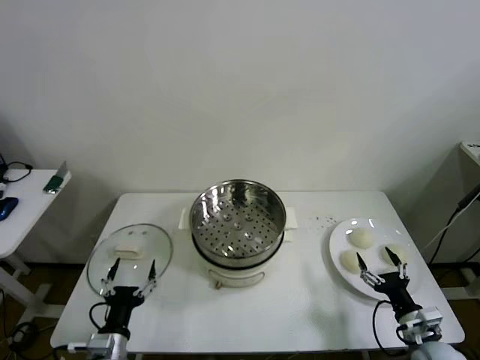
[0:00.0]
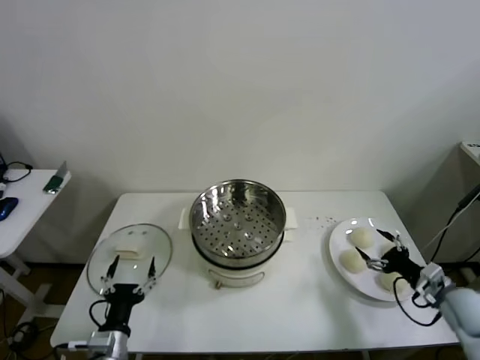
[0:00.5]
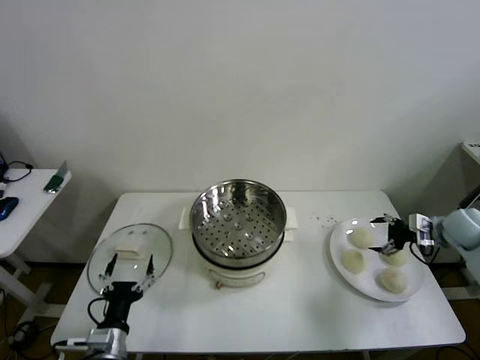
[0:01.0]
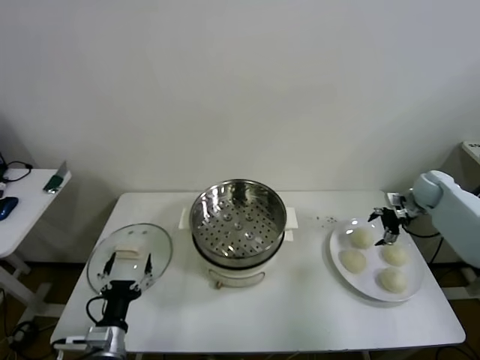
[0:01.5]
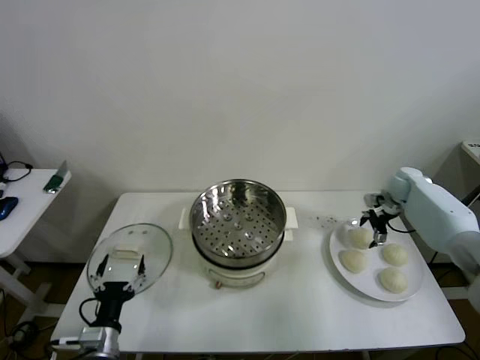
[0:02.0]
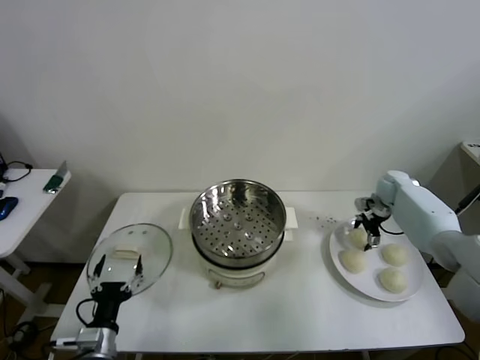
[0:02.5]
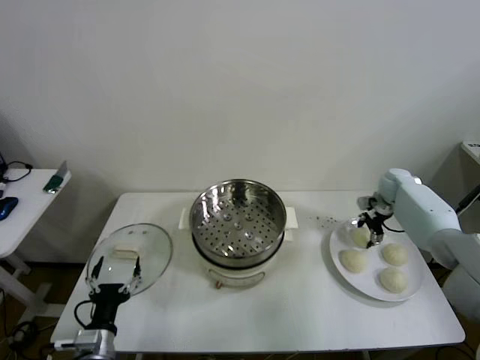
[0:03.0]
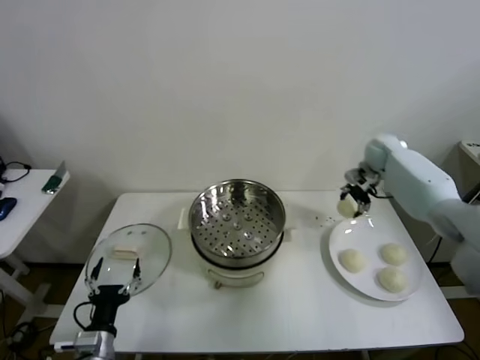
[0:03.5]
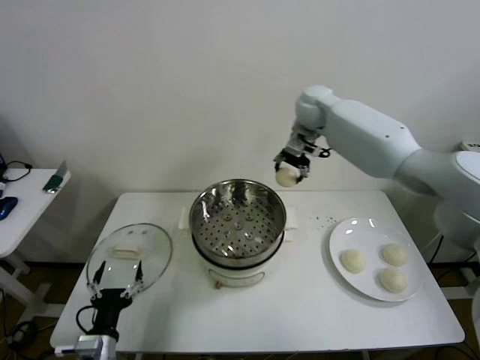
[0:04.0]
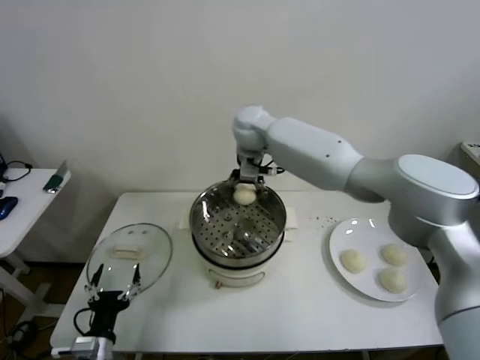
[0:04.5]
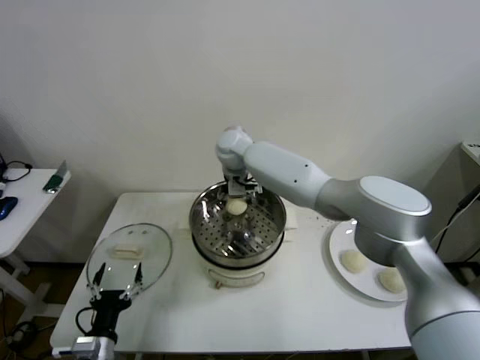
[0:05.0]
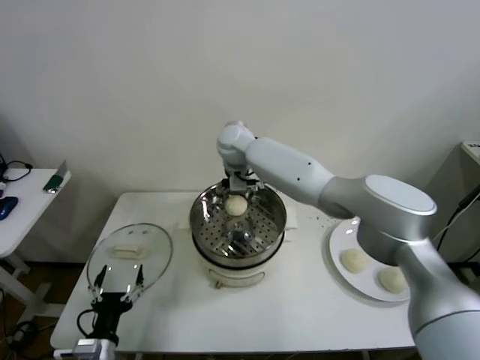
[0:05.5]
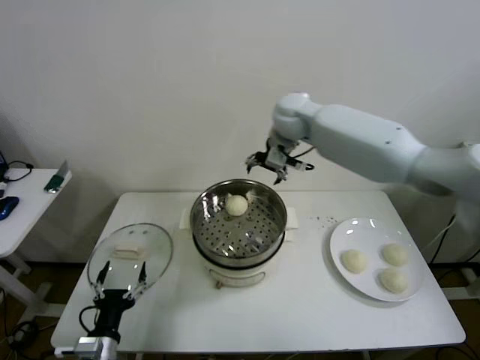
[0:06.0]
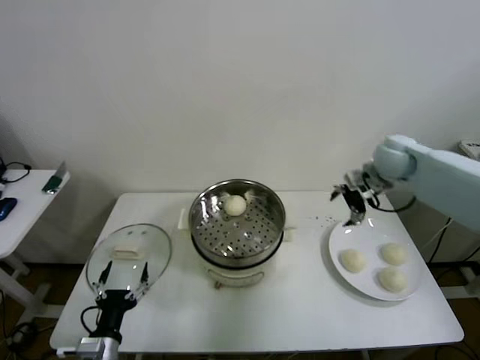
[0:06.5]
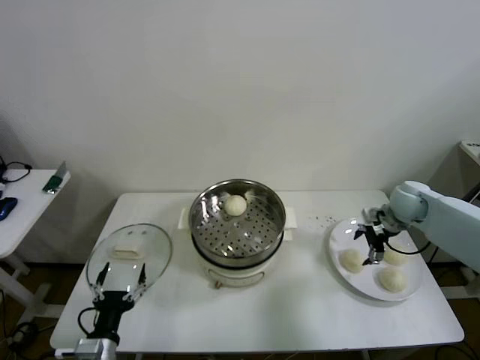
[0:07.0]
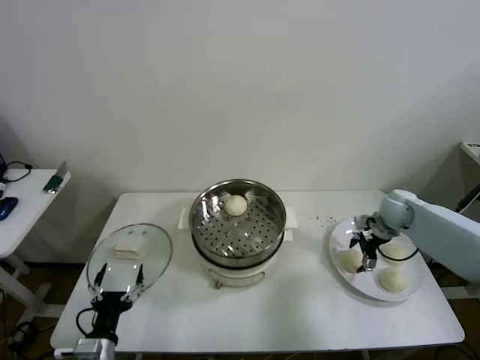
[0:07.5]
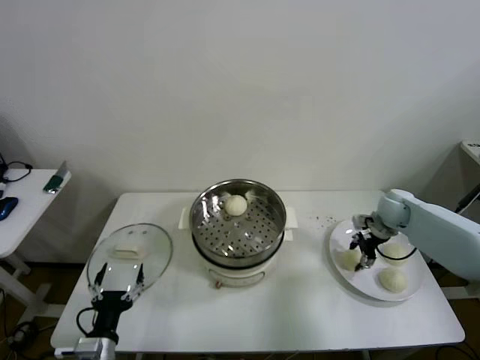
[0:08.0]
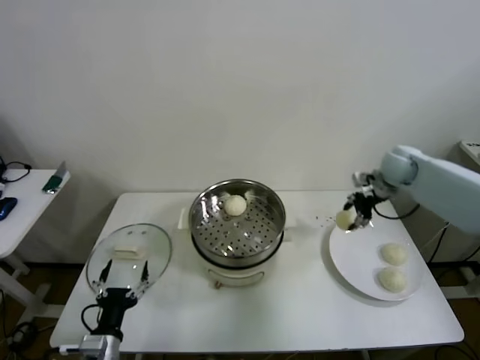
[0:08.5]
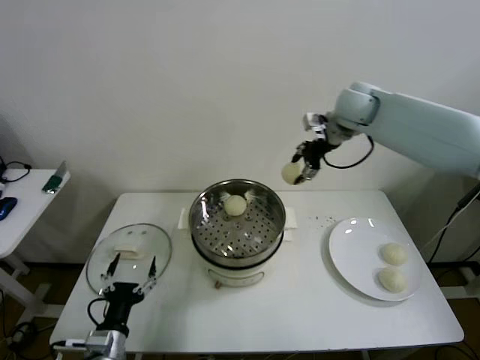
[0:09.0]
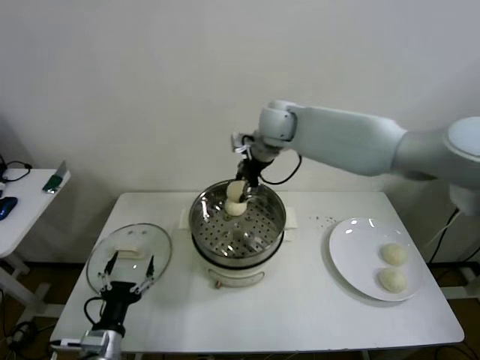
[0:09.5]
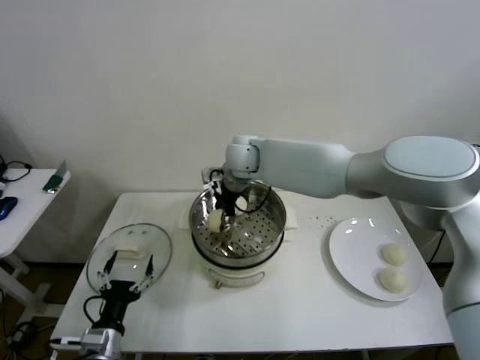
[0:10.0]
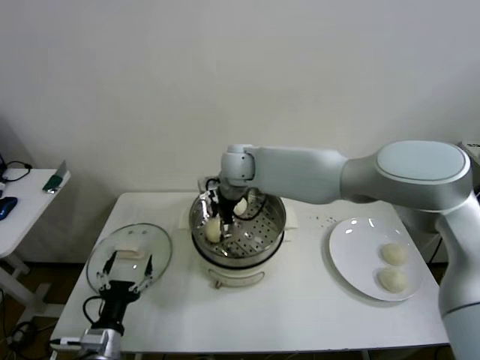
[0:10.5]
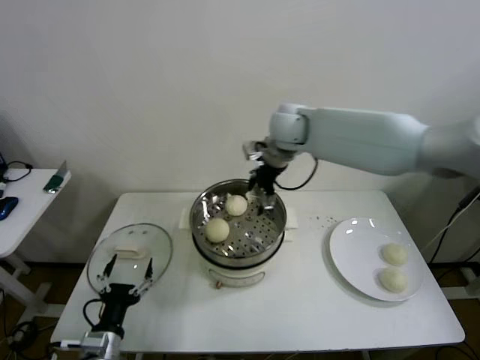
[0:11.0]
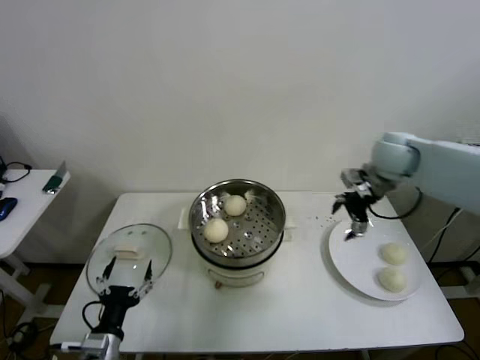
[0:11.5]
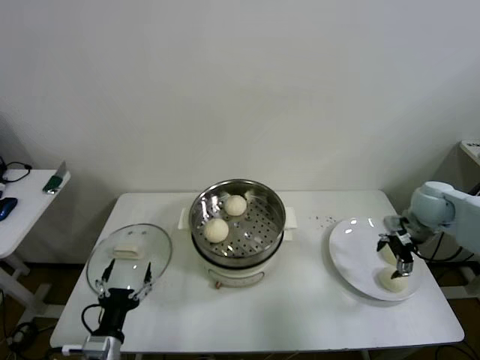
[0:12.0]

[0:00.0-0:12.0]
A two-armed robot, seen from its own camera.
Step, 0:00.0 to 0:02.5: Grasp the baozi in the plate with right gripper.
Step, 0:03.0 to 0:05.5: Place the baozi on the steamer with right gripper.
Step, 0:06.0 to 0:07.5: Grasp the baozi in the plate with right gripper.
Step, 0:08.0 to 0:10.5: Place the baozi on the steamer with right gripper.
0:02.0 to 0:04.0: The right gripper heads to the left and upward, covering approximately 40 cm, and closes its fingers.
0:04.0 to 0:06.0: The right gripper travels to the left and back again, about 15 cm each way, and opens its fingers.
0:06.0 to 0:08.0: The right gripper shifts some 35 cm to the right and downward, and closes up.
0:08.0 to 0:10.0: The right gripper goes approximately 40 cm to the left.
0:10.0 to 0:12.0: The right gripper travels to the right by approximately 40 cm, and opens its fingers.

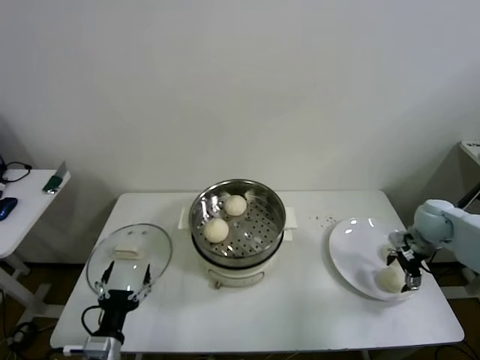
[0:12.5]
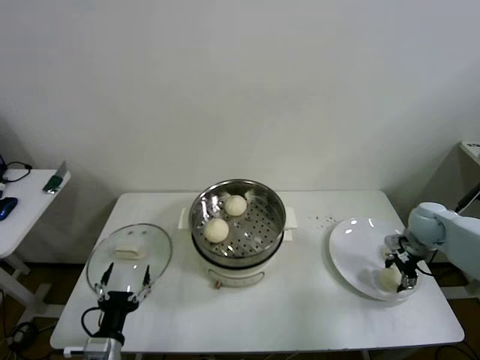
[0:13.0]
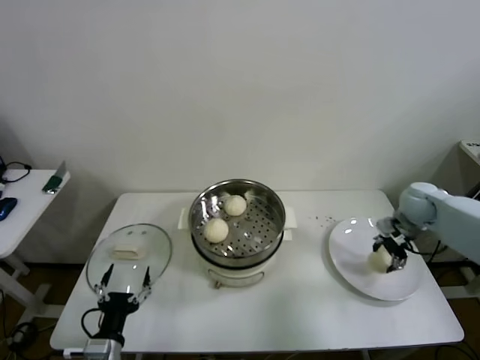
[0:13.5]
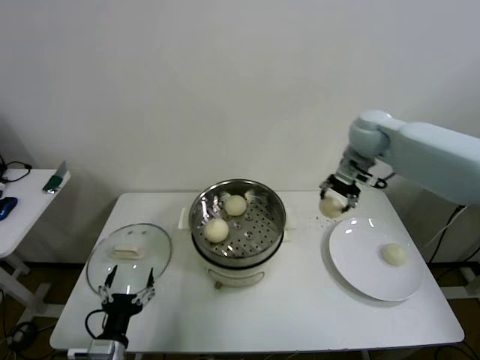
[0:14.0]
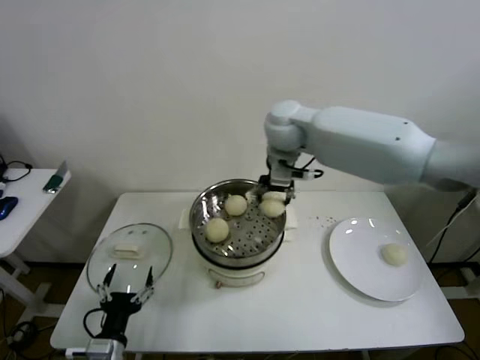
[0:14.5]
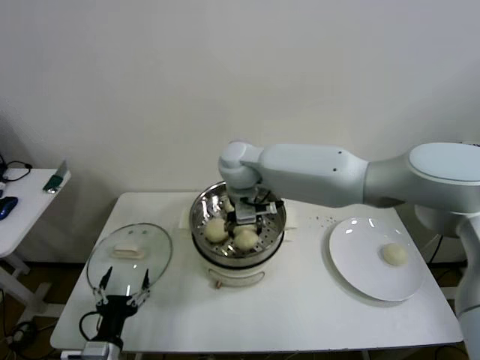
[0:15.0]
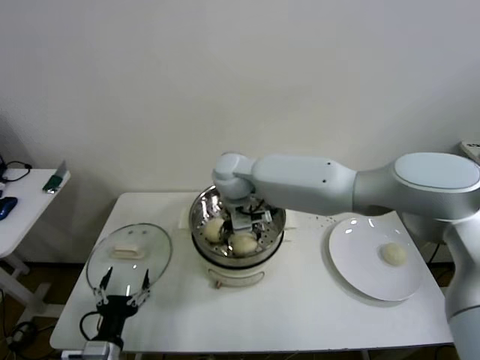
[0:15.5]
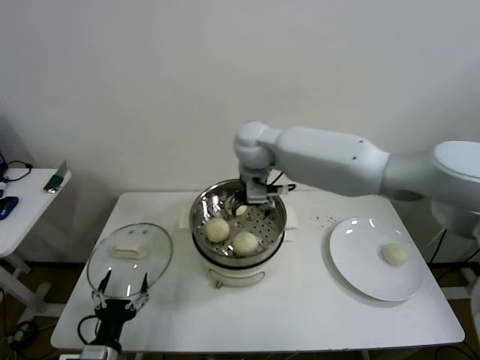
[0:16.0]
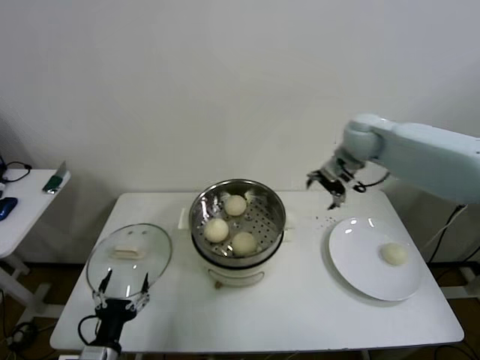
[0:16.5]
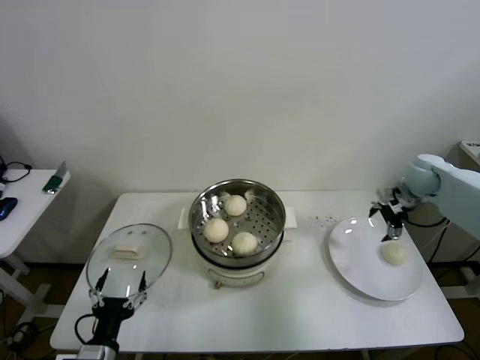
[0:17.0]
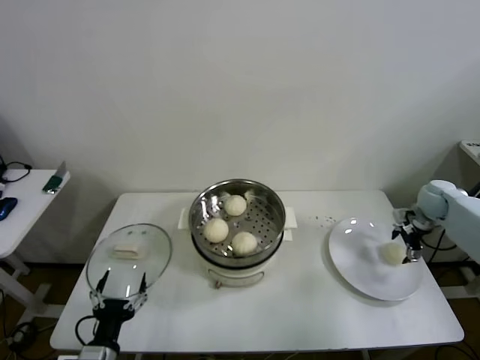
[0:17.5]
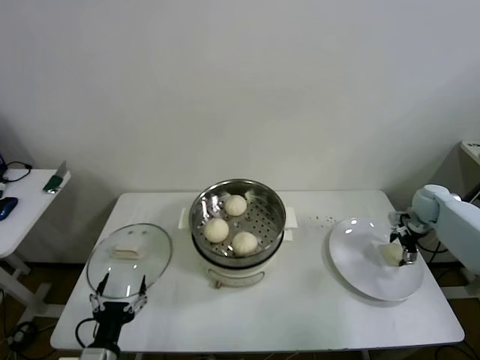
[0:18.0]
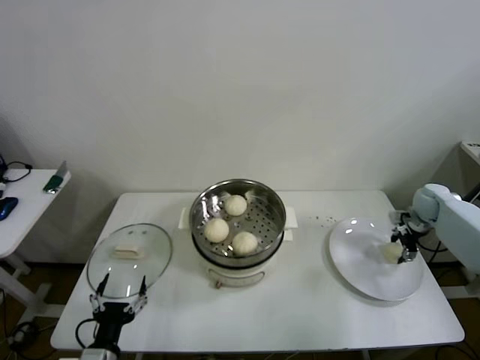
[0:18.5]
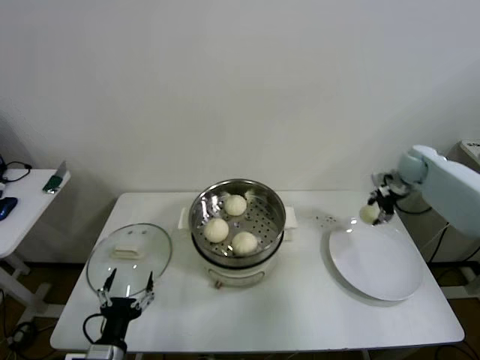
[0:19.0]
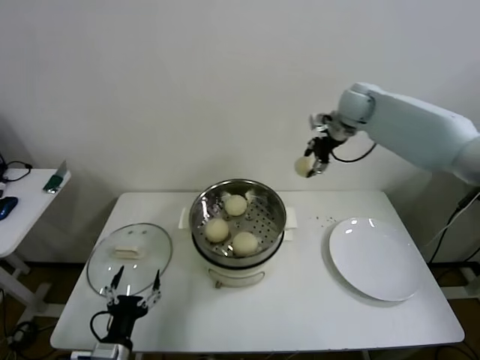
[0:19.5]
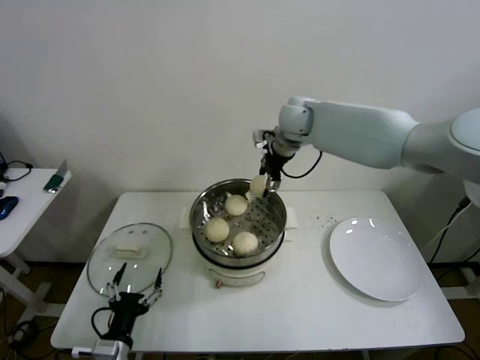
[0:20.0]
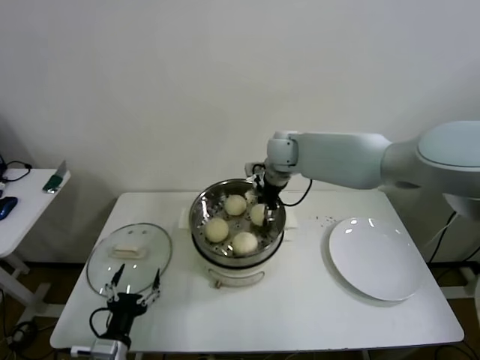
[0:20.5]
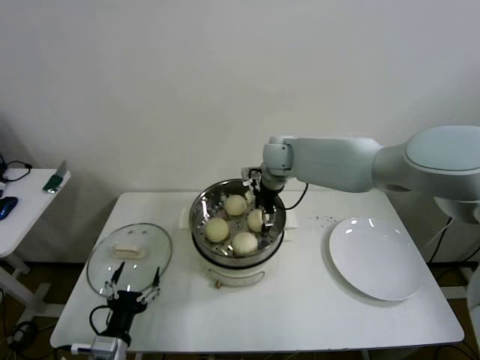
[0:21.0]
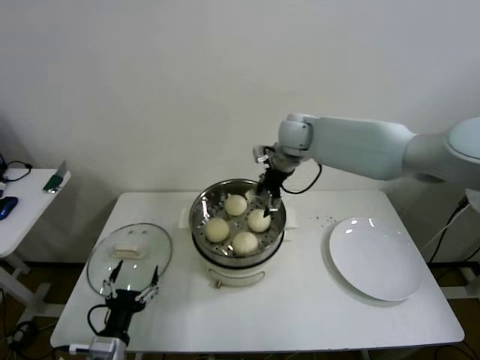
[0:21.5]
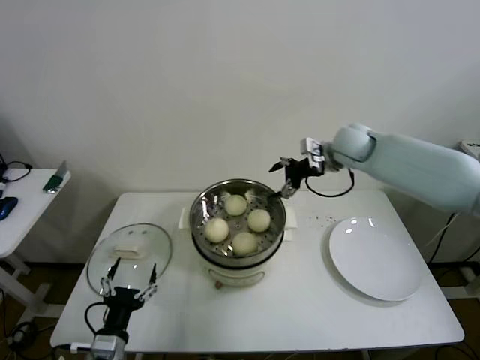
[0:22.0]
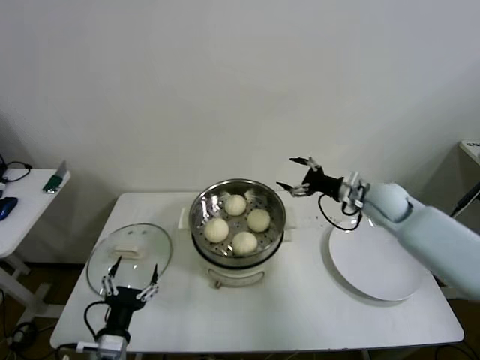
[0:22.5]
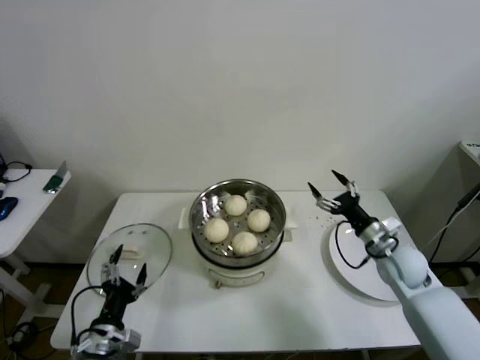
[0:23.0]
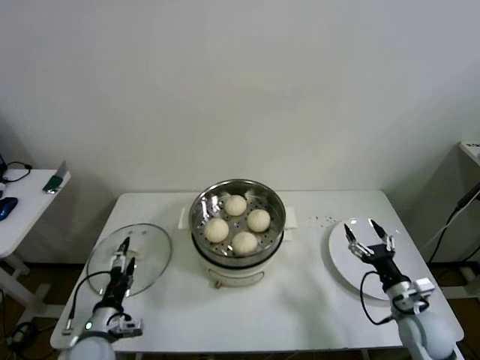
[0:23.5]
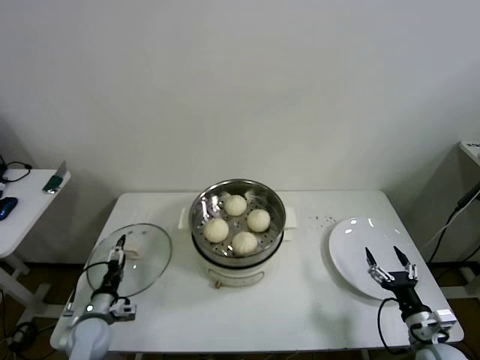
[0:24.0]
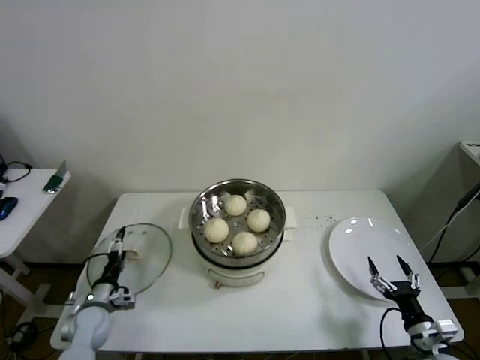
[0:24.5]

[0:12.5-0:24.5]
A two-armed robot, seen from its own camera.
Step, 0:13.5 to 0:16.0: Place the baozi on the steamer with right gripper.
Step, 0:16.5 to 0:18.5: Grasp the baozi in the plate with right gripper.
Step, 0:19.0 to 0:21.0: Place the baozi on the steamer with right gripper.
0:12.5 to 0:14.5: The right gripper is displaced to the left and upward by approximately 40 cm, and closes.
0:14.5 to 0:16.5: The right gripper moves to the right, some 20 cm, and opens.
0:16.5 to 0:18.5: The right gripper is displaced to the right and downward by roughly 30 cm, and closes its fingers.
0:18.5 to 0:20.5: The right gripper moves to the left, some 40 cm.
0:20.5 to 0:22.5: The right gripper goes approximately 25 cm to the right and backward, and opens.
0:22.5 to 0:24.5: The left gripper travels forward, to the left and downward by some 20 cm, while the right gripper heads backward and downward, covering about 35 cm.

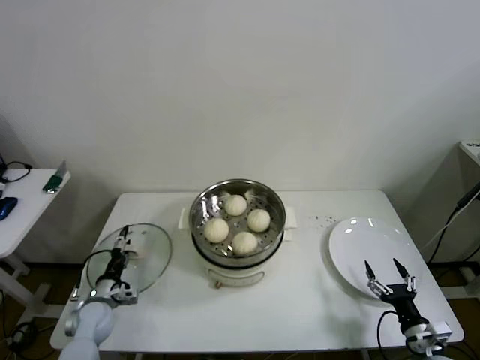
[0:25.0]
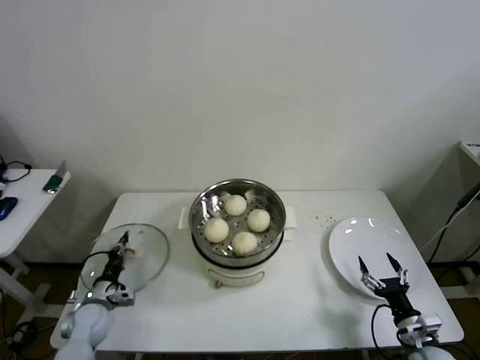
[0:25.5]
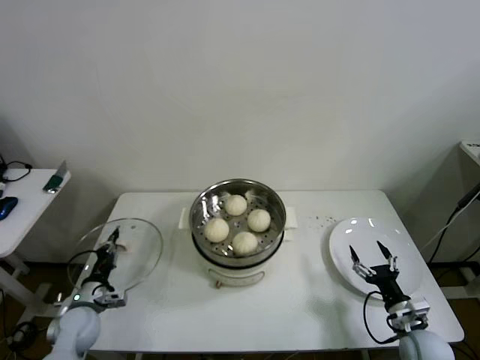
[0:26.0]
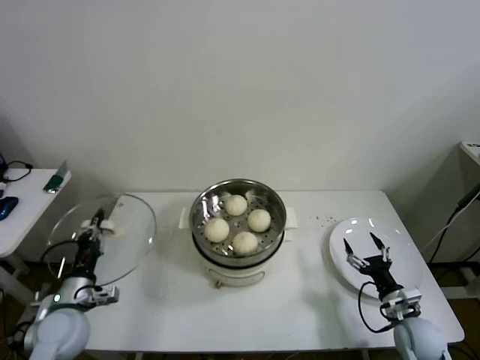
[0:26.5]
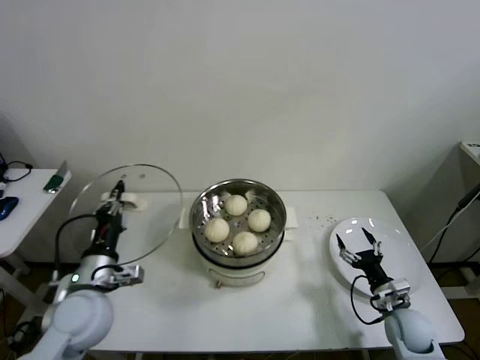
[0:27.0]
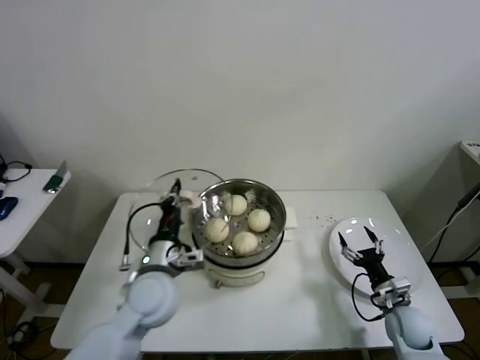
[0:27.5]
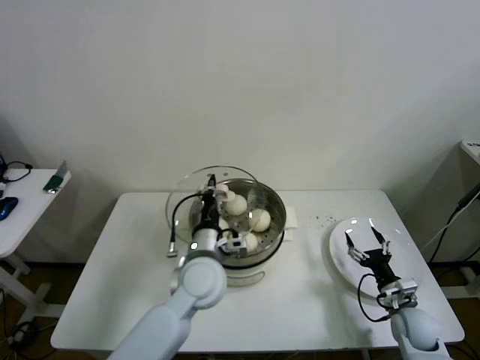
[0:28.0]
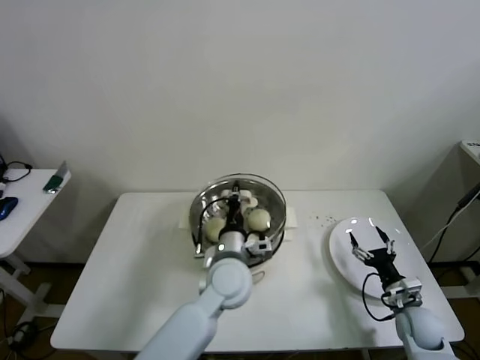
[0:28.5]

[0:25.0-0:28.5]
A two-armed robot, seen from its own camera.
0:25.0 to 0:27.0: The right gripper goes approximately 10 cm forward. The left gripper travels upward and to the right by about 25 cm, and closes.
0:27.0 to 0:28.5: The left gripper heads to the right, covering roughly 25 cm.
